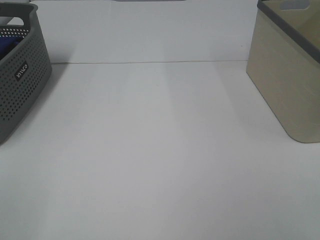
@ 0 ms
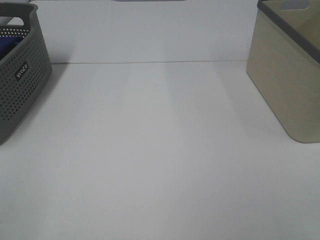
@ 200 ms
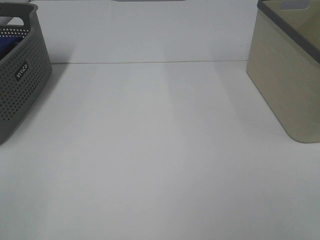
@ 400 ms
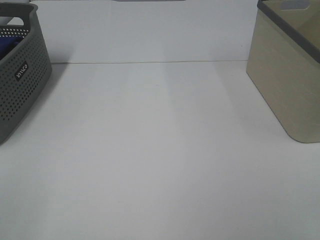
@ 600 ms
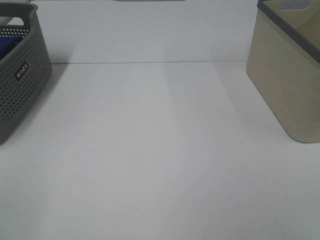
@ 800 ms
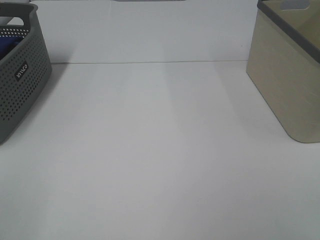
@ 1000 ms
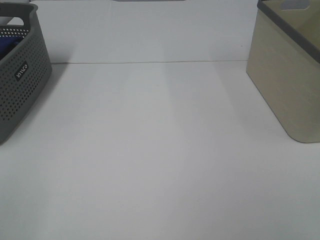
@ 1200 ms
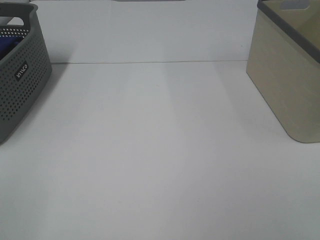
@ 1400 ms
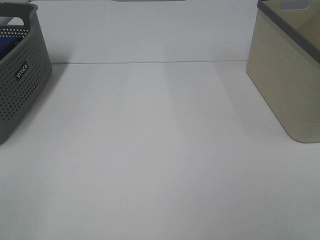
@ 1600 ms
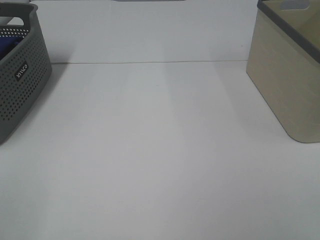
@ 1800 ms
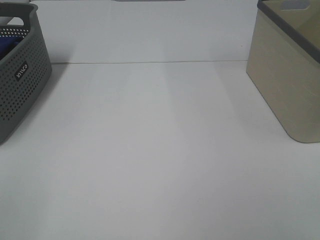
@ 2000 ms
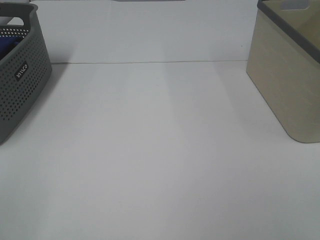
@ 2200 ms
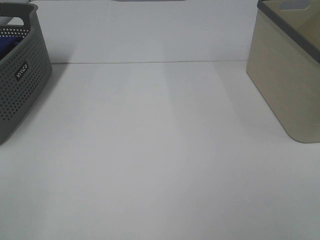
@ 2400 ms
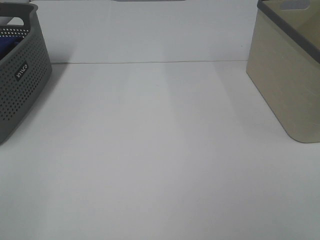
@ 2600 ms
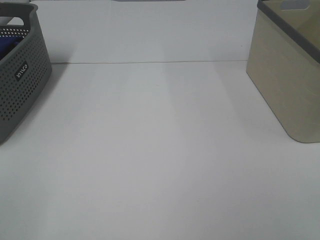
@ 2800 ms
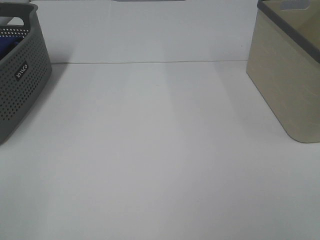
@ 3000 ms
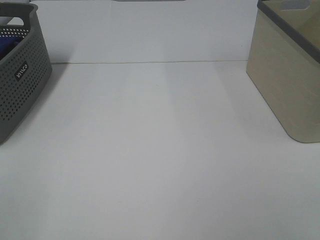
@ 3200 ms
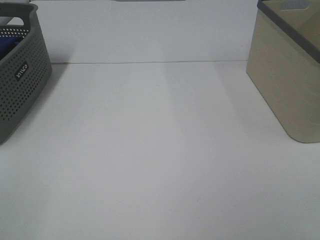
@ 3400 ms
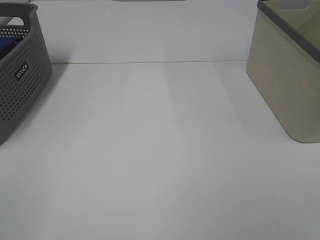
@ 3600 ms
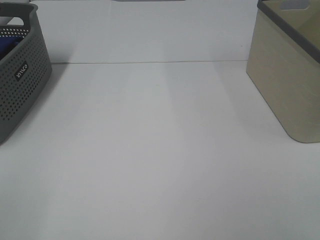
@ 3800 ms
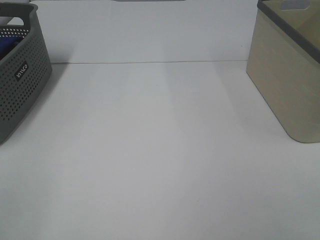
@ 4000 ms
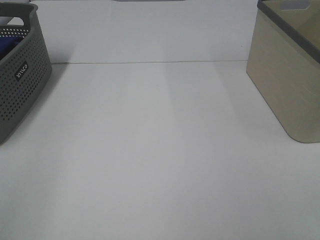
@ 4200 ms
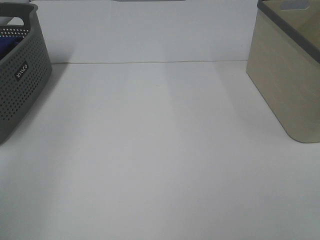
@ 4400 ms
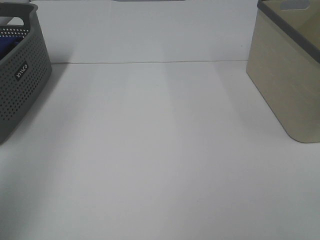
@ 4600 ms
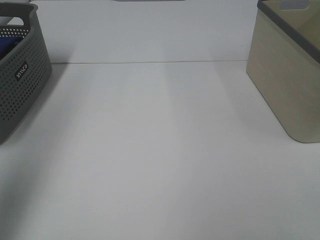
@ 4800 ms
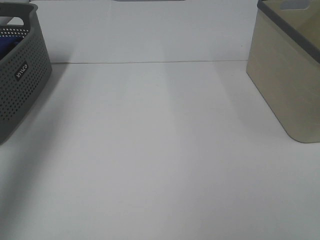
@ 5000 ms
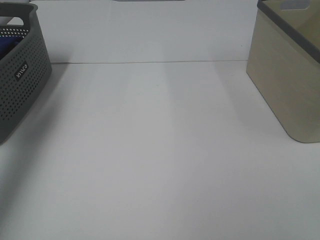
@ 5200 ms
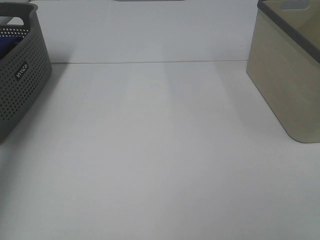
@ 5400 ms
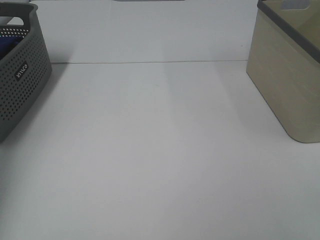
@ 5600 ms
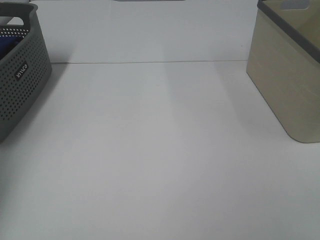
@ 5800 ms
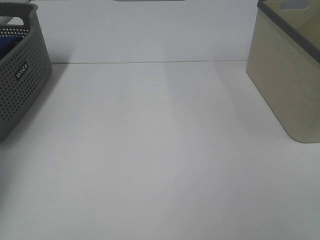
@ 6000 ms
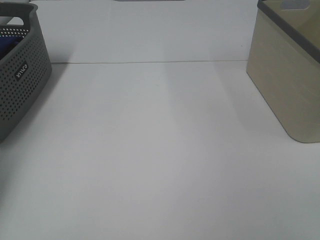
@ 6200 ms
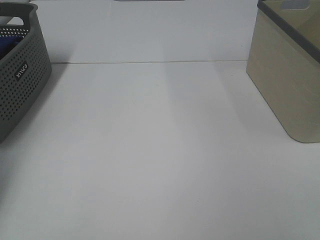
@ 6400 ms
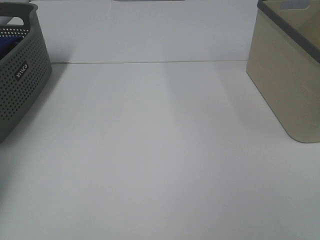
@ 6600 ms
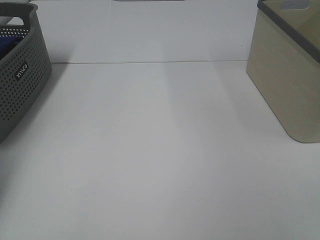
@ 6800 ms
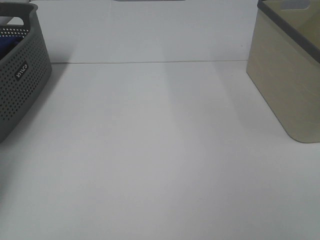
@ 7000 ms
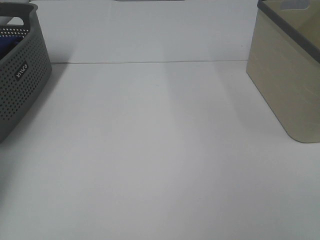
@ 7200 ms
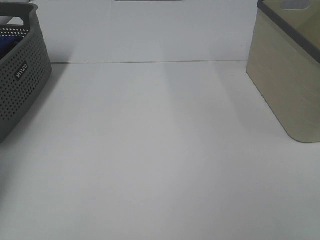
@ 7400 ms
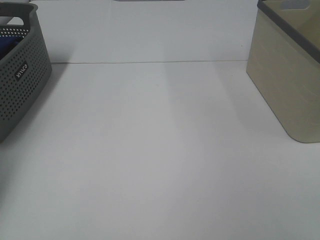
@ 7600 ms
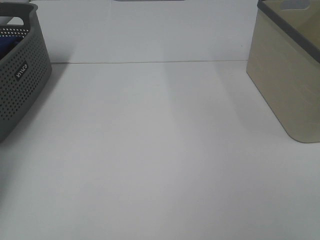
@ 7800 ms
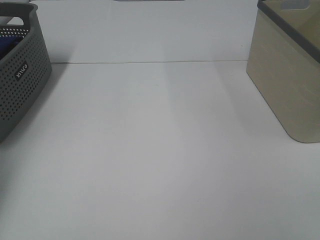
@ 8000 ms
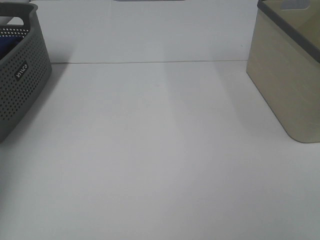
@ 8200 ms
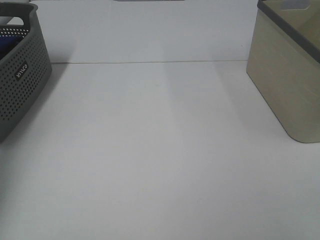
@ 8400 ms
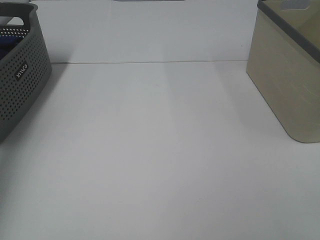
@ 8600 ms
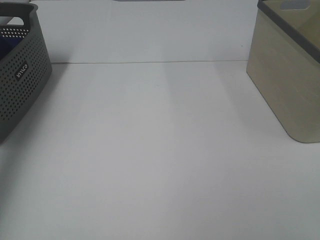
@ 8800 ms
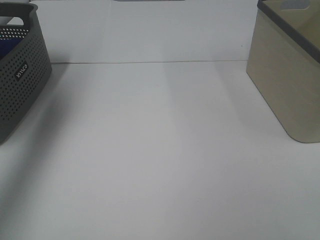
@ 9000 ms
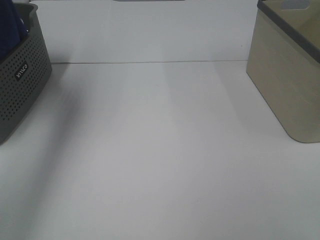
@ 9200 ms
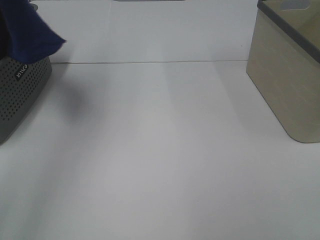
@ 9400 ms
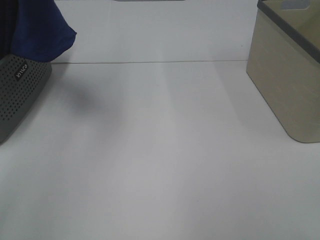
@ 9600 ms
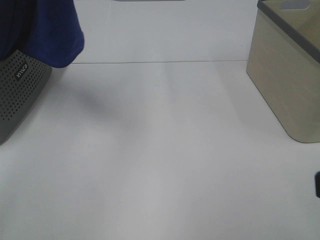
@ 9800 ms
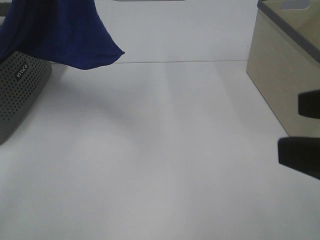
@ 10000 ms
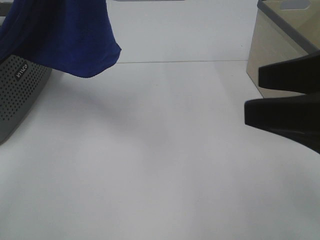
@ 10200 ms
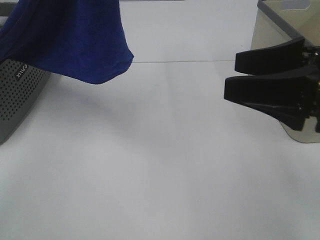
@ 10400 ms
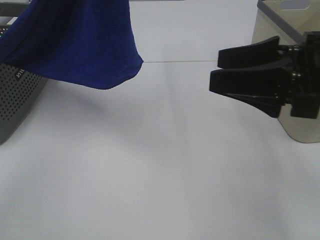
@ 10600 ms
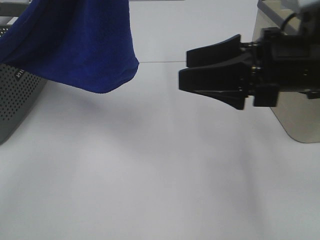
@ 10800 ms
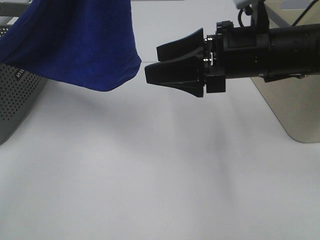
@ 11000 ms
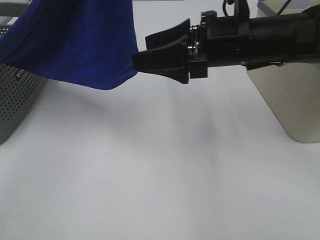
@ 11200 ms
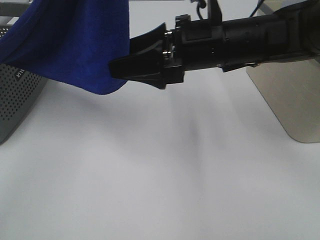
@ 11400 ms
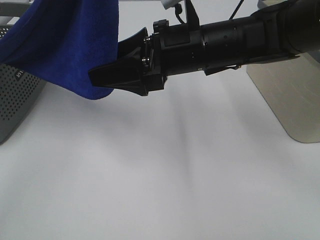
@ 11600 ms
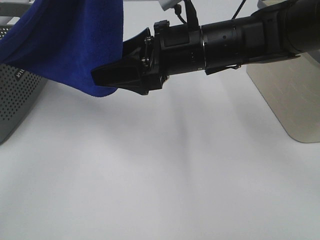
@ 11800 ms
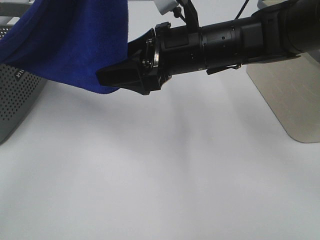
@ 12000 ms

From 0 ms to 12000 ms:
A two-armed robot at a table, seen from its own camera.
Task of the whole recording: Remove the towel and place it.
From 0 ms to 3000 ms: The two grippers keep their place.
From 4400 ms to 6000 ms: The left gripper shifts roughly 40 cm forward and downward.
From 7600 ms to 9000 ms: The left gripper is displaced upward by some 30 cm.
From 9000 ms to 10400 ms: The right gripper goes about 20 cm forward, while the left gripper heads to the right and backward, covering approximately 25 cm.
From 10400 ms to 12000 ms: The right gripper goes some 20 cm to the left and forward.

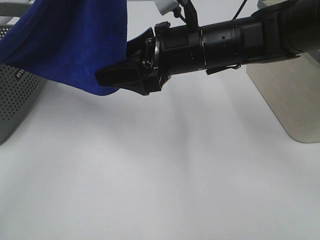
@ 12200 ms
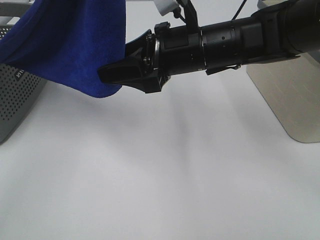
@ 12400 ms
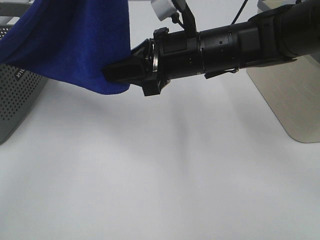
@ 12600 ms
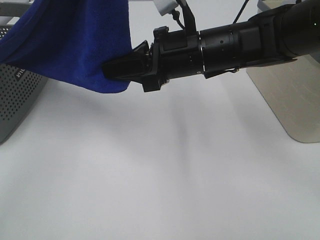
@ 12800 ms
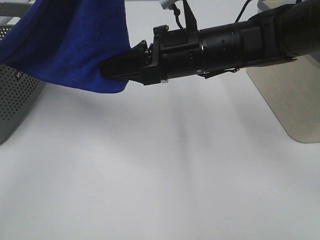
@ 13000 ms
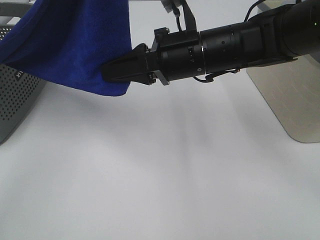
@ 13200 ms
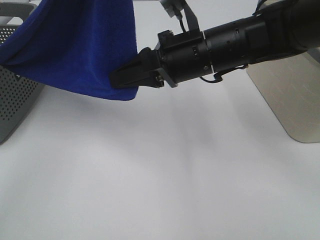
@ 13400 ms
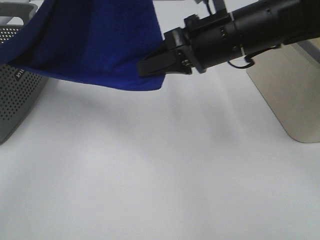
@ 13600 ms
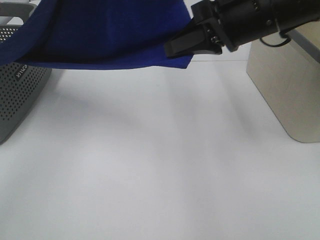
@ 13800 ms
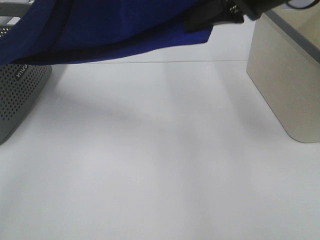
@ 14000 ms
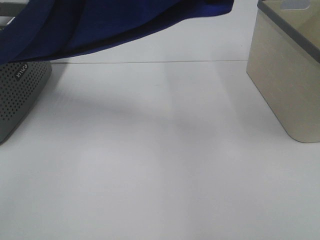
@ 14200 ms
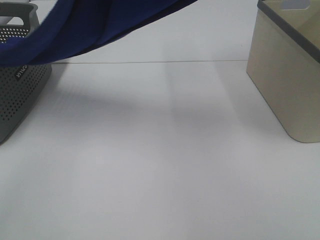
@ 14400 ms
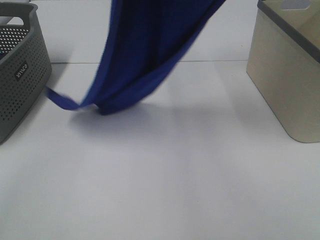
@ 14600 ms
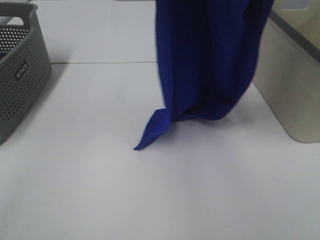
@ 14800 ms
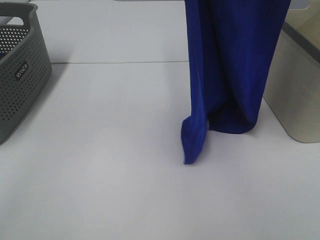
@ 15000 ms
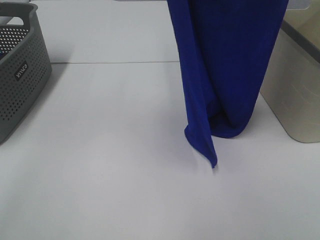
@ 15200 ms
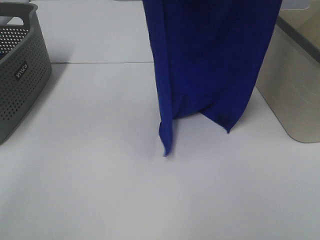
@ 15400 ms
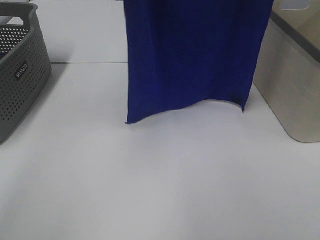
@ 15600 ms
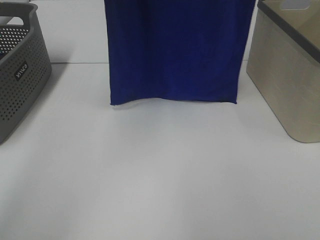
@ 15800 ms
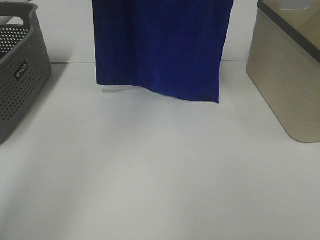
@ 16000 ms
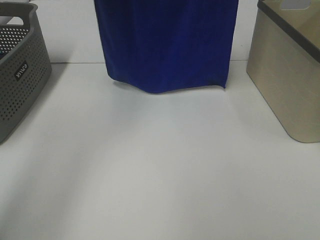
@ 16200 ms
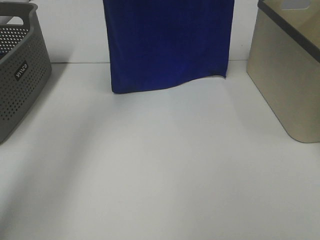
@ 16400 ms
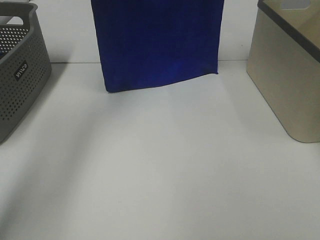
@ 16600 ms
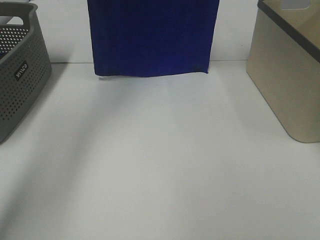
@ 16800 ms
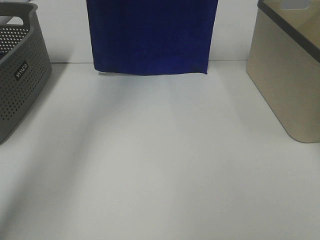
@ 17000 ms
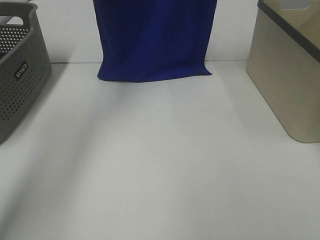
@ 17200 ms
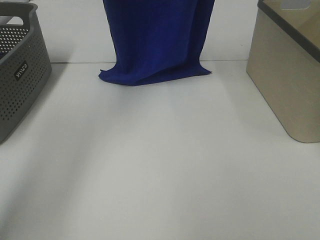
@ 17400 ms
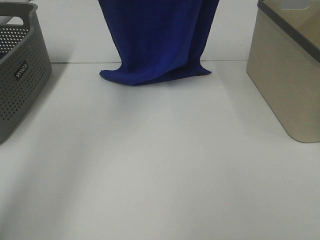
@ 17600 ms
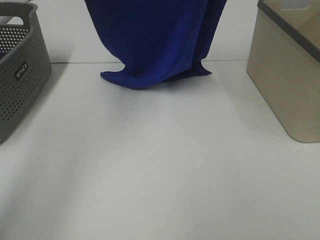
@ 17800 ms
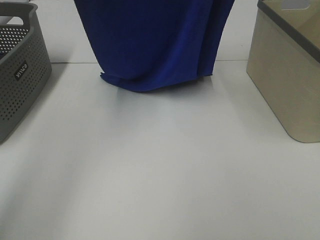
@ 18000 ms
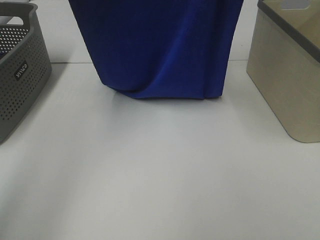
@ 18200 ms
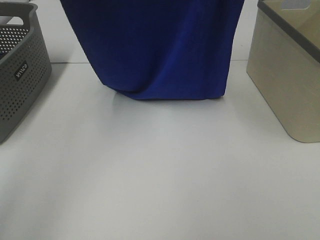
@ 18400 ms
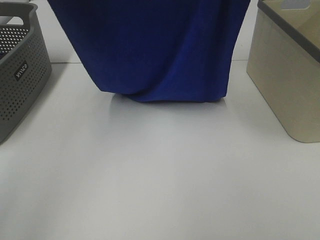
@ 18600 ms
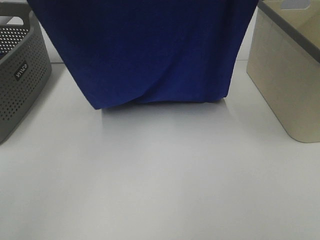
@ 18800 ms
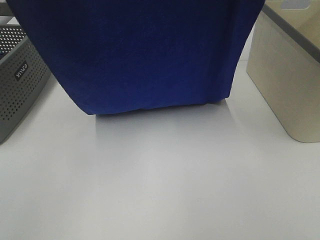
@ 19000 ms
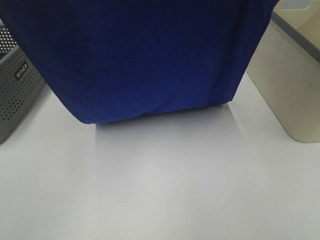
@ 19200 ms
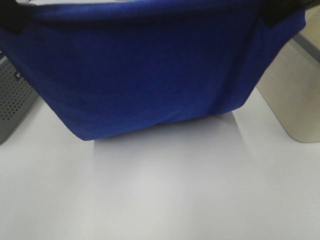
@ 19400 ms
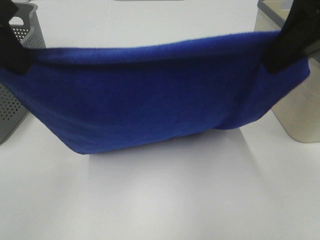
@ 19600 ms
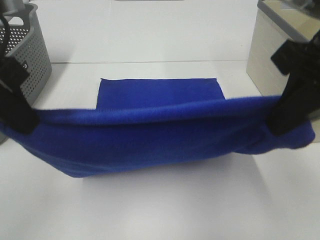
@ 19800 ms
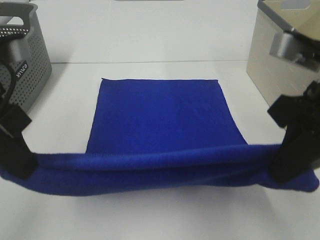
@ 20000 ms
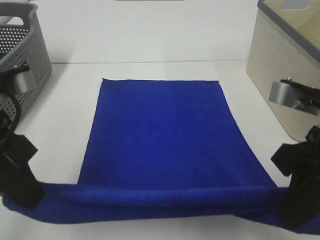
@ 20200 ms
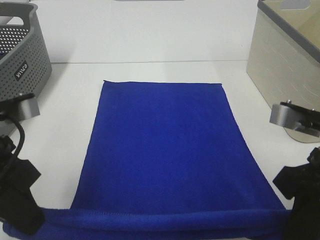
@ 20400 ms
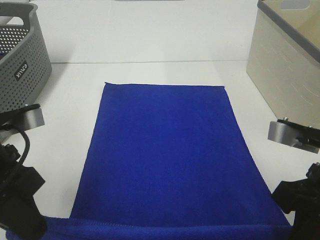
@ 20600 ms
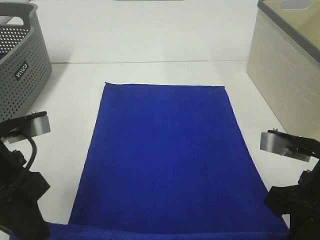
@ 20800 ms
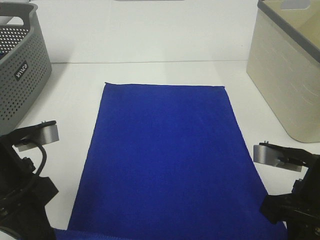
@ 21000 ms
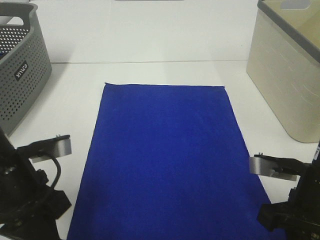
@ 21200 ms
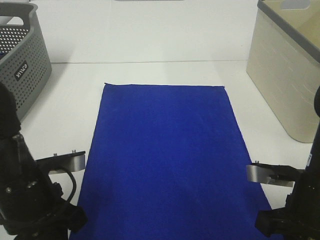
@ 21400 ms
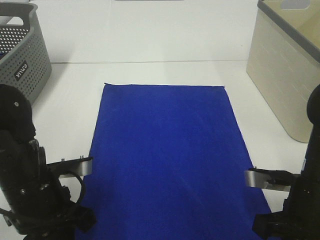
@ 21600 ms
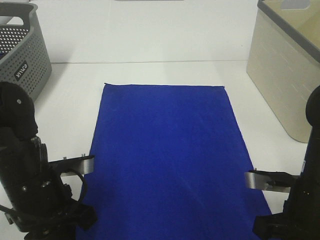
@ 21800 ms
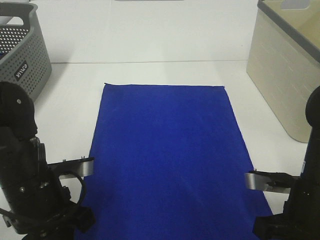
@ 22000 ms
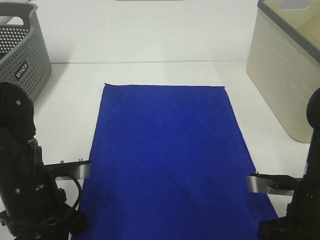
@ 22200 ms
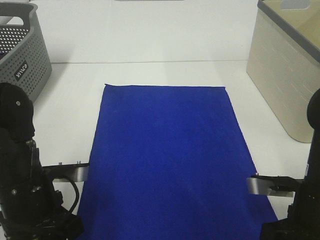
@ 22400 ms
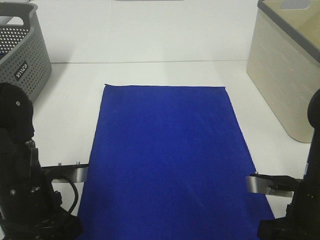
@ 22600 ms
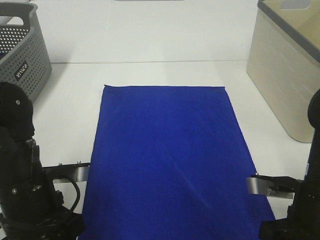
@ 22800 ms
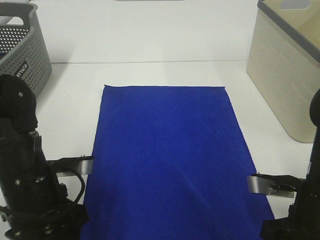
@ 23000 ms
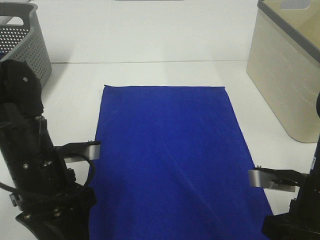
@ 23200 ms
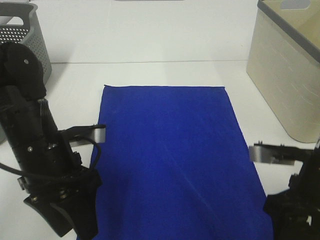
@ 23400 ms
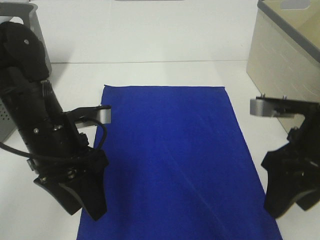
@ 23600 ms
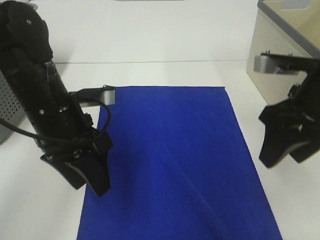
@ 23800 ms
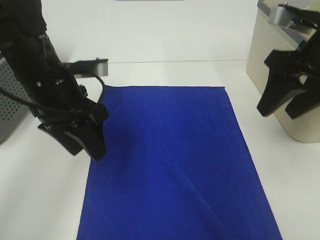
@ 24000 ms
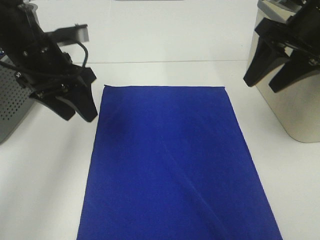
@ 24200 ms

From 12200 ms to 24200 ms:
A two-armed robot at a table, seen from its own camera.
Task of the whole recording: Remove the towel and place it.
Step, from 12800 ms to 18200 ms: Left hand: spread the blue towel flat on the table.
Step, from 12800 ms to 18200 ms: Right hand: spread the blue towel flat on the table.
From 12200 ms to 13800 ms: The right gripper travels to the right and upward by some 10 cm, and closes up.
From 13800 ms to 15200 ms: The right gripper shifts roughly 20 cm upward. The left gripper travels forward by approximately 5 cm.
From 15200 ms to 16600 ms: The right gripper is displaced forward by about 15 cm. The left gripper heads forward, to the left and downward, covering approximately 20 cm.
From 16600 ms to 18200 ms: The grippers both shift backward by approximately 10 cm.
From 18200 ms to 19800 ms: Both grippers travel together downward and backward, roughly 25 cm.
From 19800 ms to 21200 ms: The grippers both shift downward by some 15 cm.
From 21200 ms to 22600 ms: The right gripper opens. Meanwhile the left gripper opens its fingers.
From 22600 ms to 24200 ms: The two grippers go about 20 cm forward and upward.
